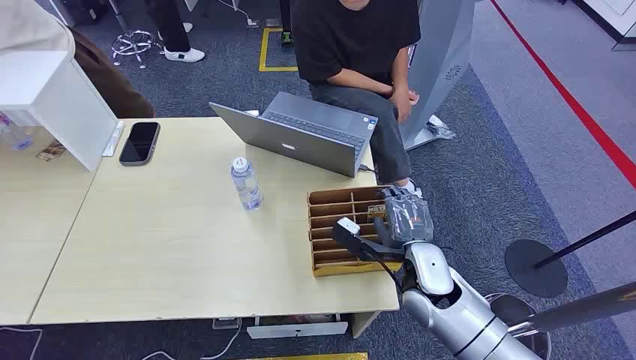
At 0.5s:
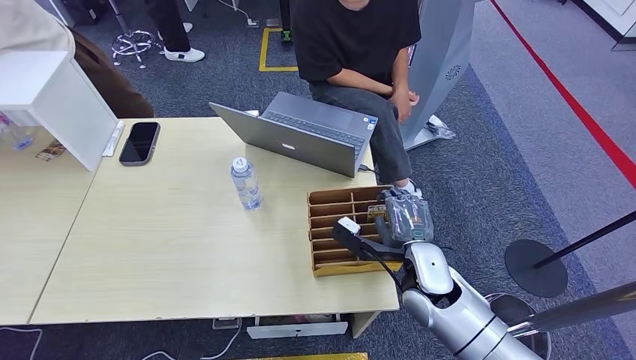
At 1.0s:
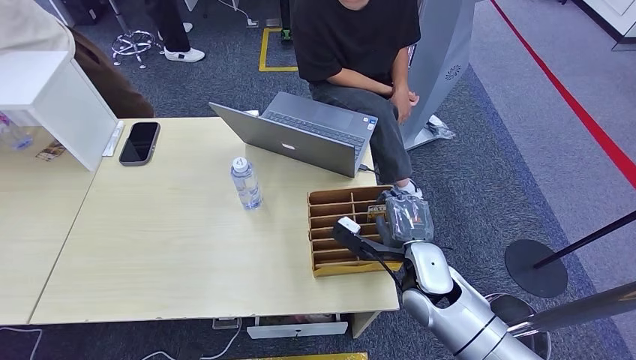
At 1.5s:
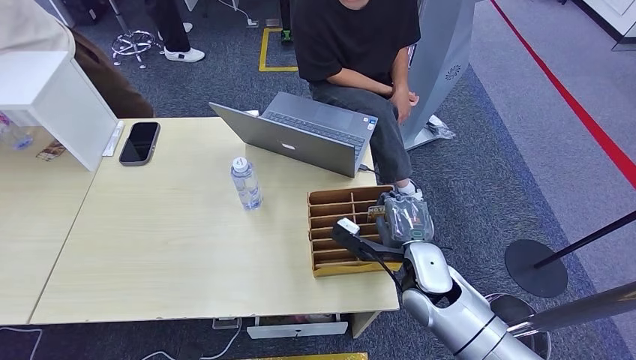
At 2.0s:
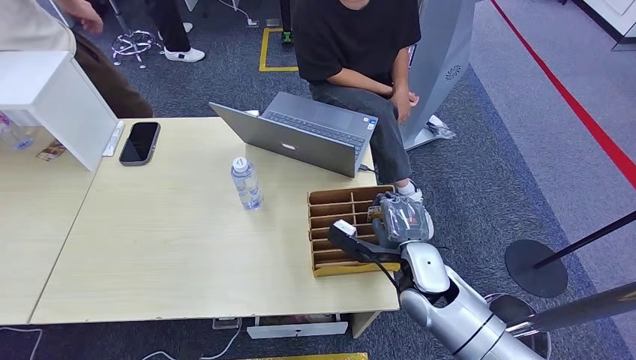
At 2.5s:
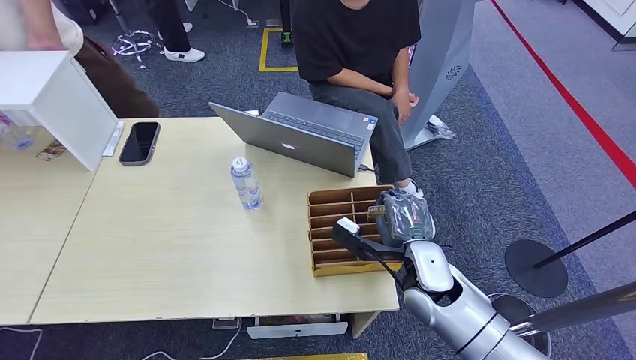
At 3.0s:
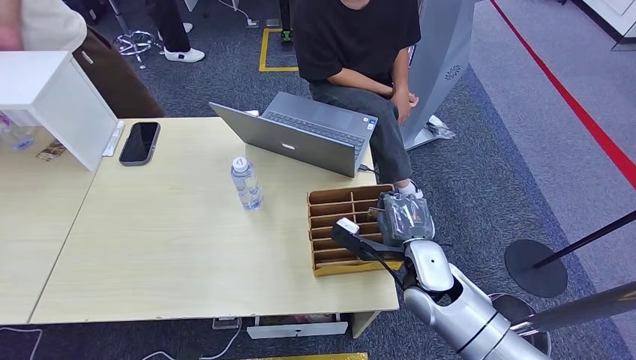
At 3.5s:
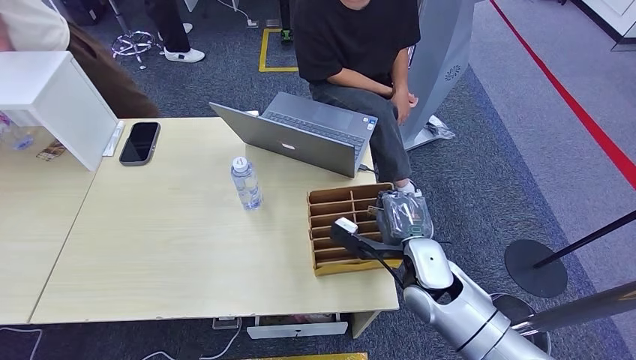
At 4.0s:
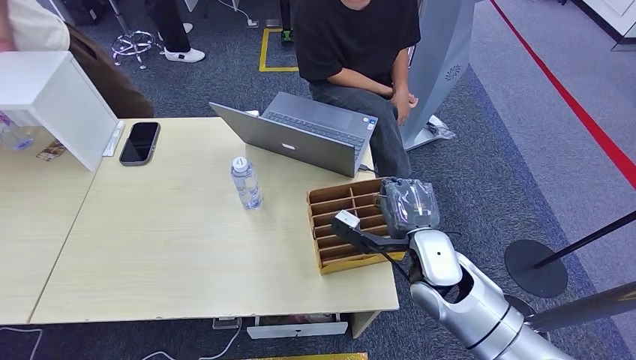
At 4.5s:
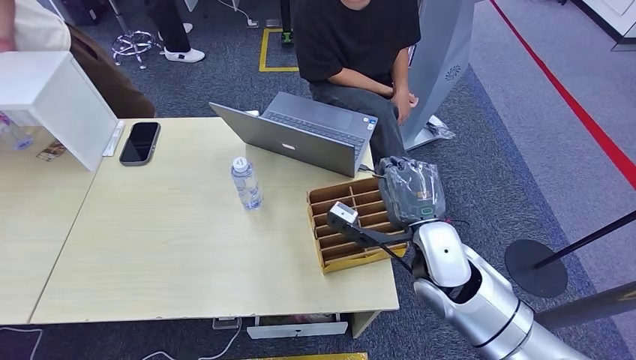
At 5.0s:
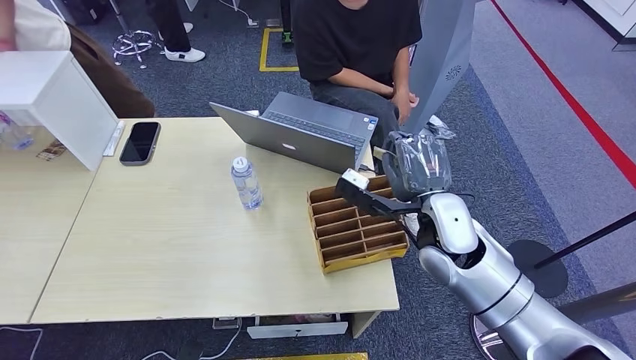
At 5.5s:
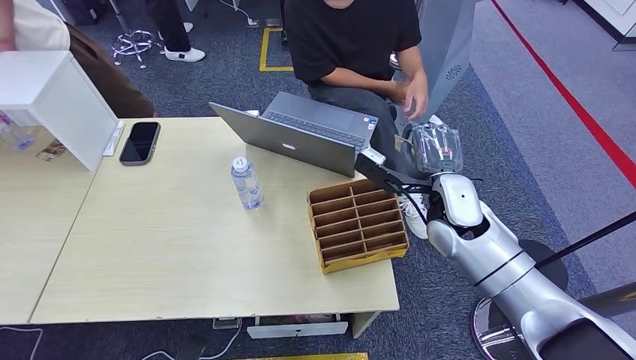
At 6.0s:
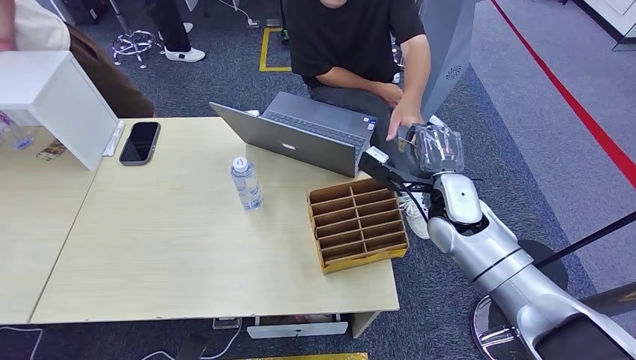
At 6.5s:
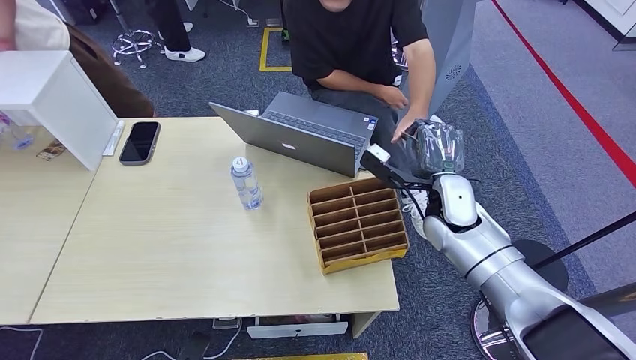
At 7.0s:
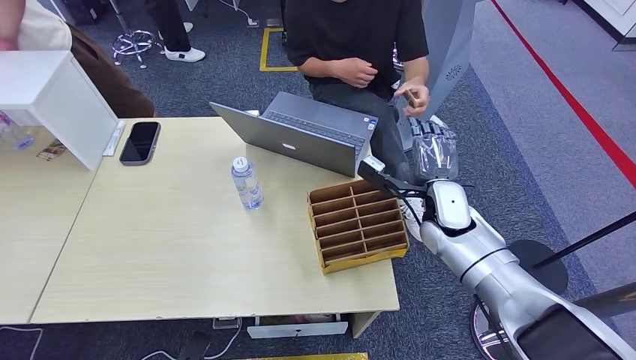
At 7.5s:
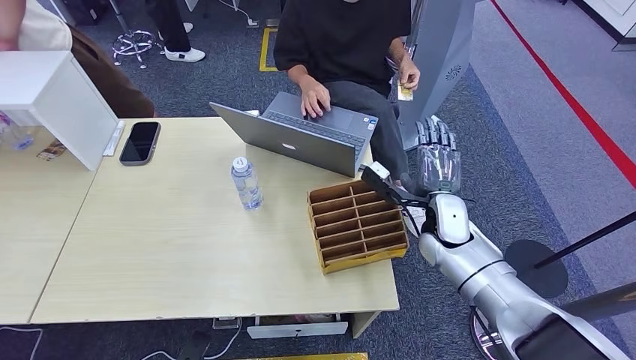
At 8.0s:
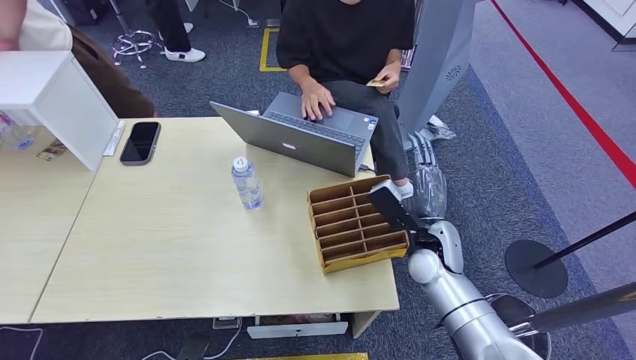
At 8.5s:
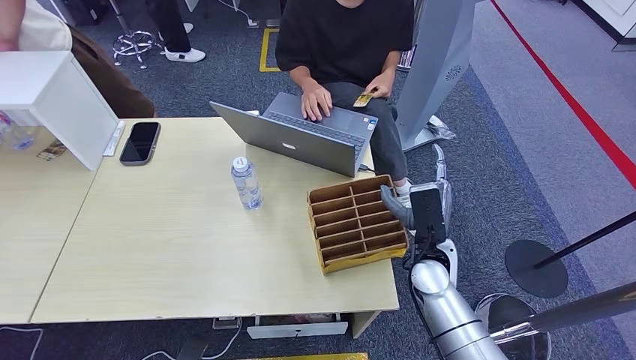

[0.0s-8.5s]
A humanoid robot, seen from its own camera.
Step, 0.0s to 4.0s: Pick up the room card from the card holder.
Step, 4.5s to 8.5s: Hand the room card to the target.
2.0s to 4.0s: The hands move only a little.
4.0s to 6.5s: The right hand travels forward and to the right by roughly 10 cm.
6.5s to 8.5s: The right hand heads backward and downward, covering about 10 cm.
